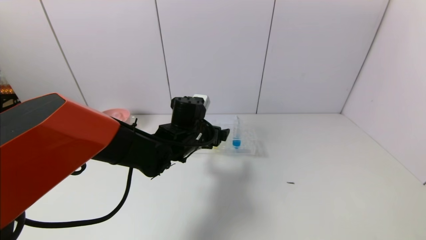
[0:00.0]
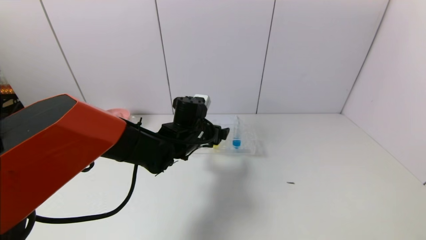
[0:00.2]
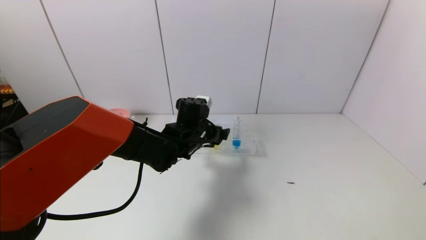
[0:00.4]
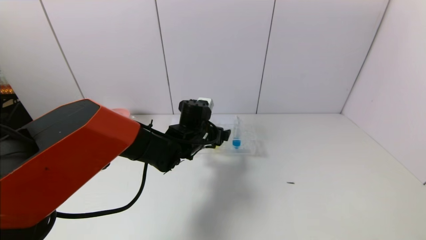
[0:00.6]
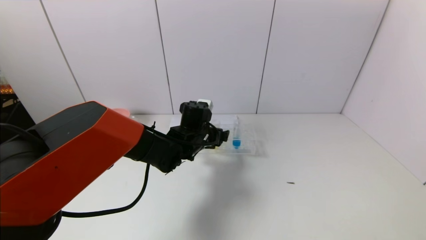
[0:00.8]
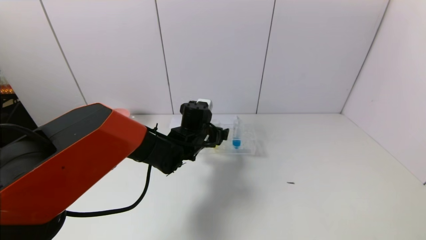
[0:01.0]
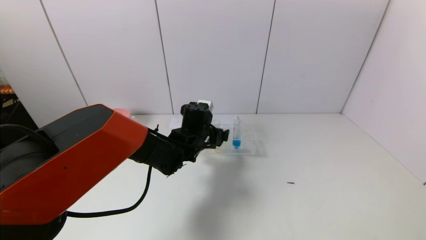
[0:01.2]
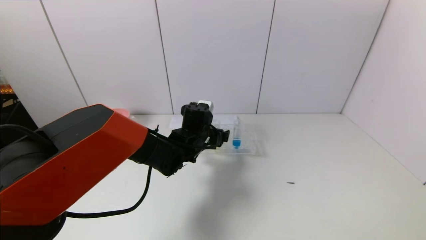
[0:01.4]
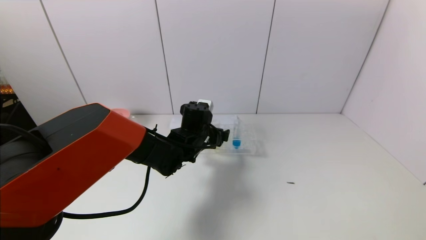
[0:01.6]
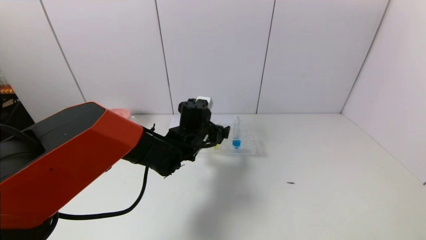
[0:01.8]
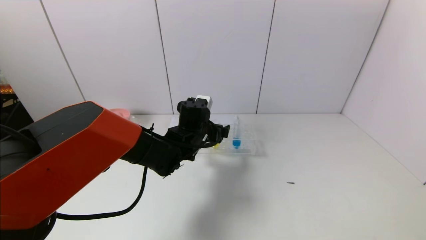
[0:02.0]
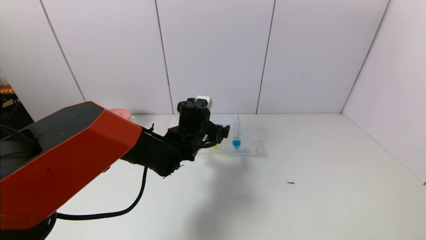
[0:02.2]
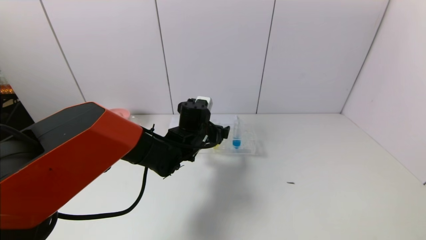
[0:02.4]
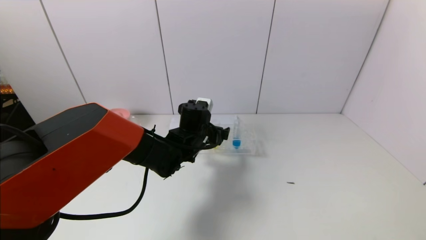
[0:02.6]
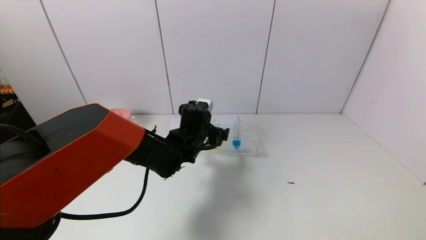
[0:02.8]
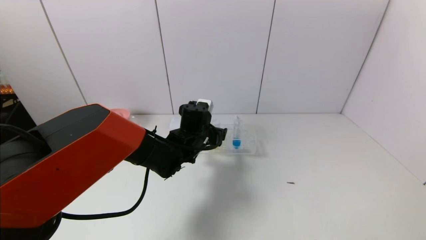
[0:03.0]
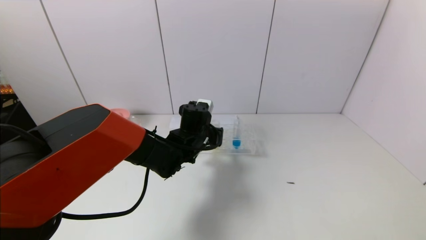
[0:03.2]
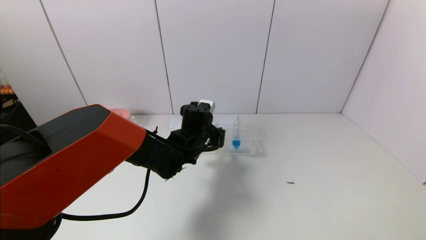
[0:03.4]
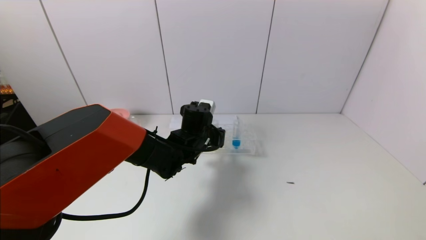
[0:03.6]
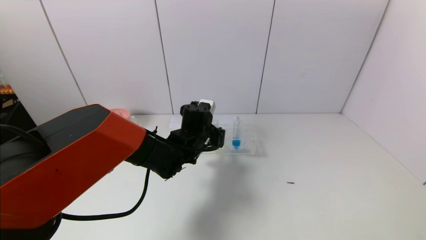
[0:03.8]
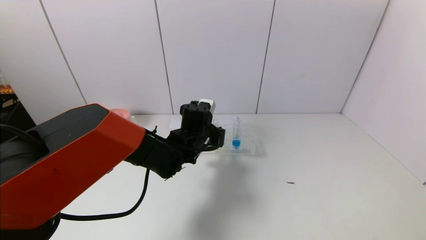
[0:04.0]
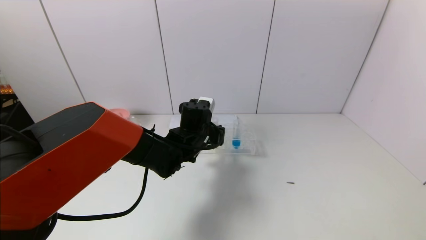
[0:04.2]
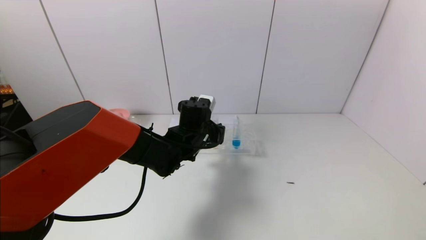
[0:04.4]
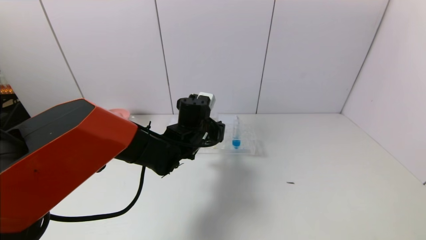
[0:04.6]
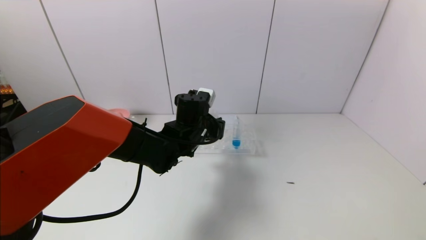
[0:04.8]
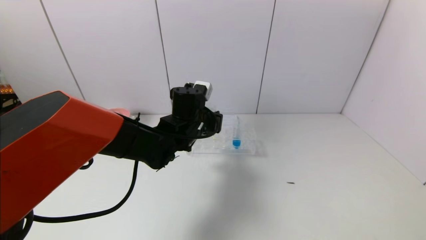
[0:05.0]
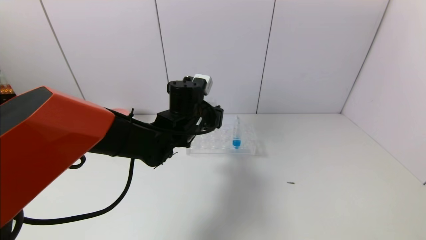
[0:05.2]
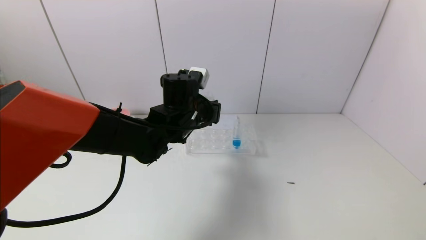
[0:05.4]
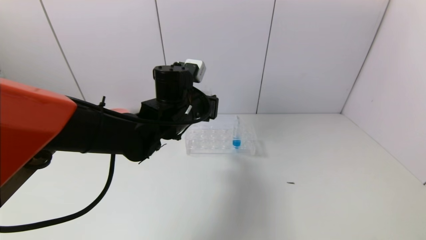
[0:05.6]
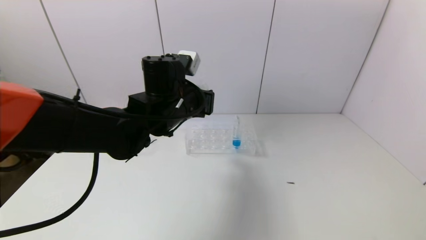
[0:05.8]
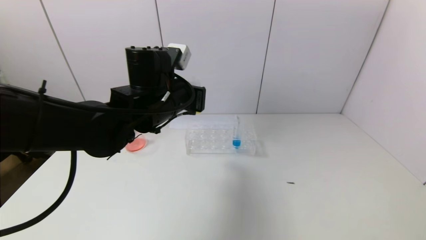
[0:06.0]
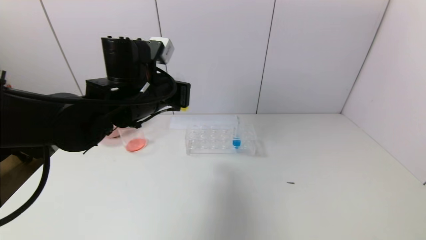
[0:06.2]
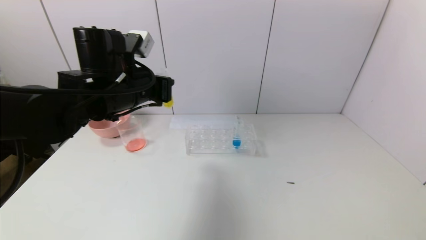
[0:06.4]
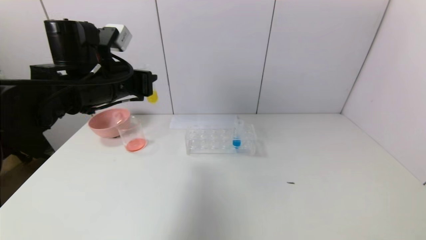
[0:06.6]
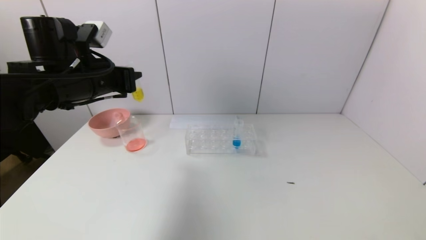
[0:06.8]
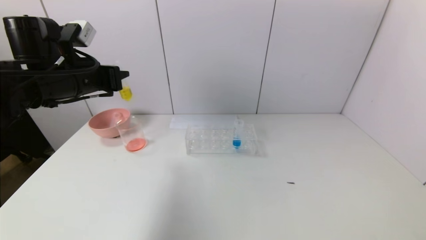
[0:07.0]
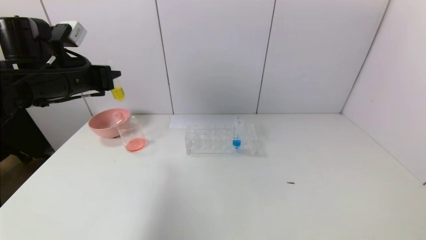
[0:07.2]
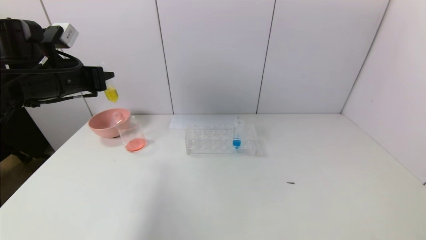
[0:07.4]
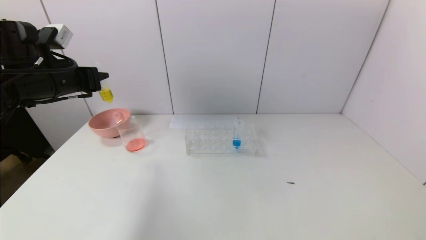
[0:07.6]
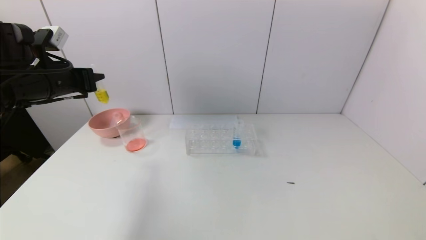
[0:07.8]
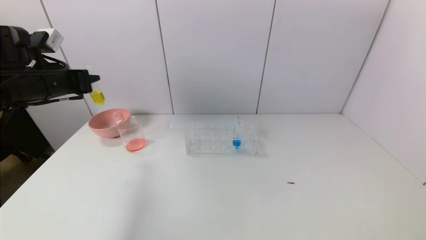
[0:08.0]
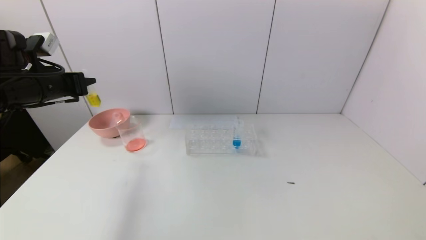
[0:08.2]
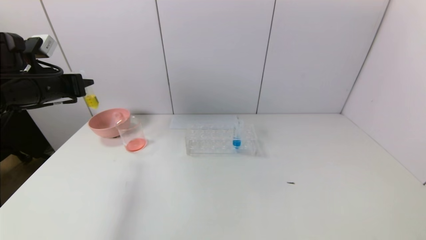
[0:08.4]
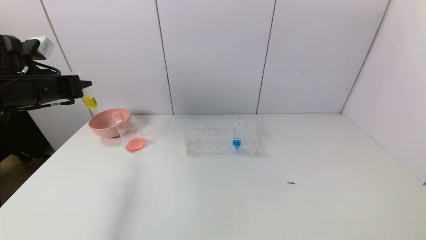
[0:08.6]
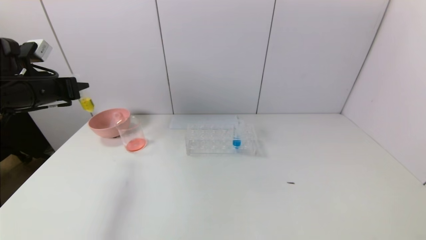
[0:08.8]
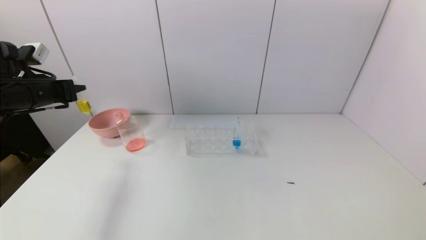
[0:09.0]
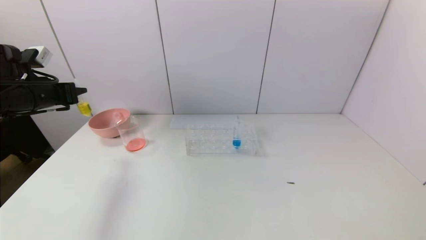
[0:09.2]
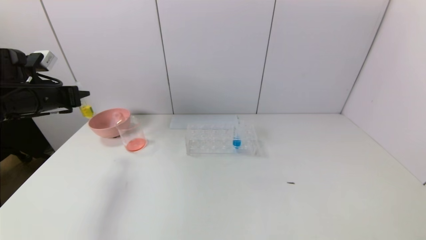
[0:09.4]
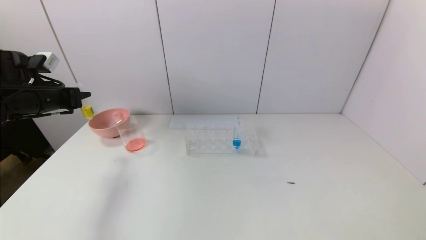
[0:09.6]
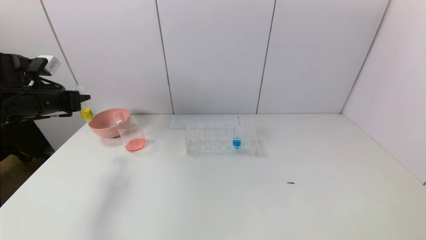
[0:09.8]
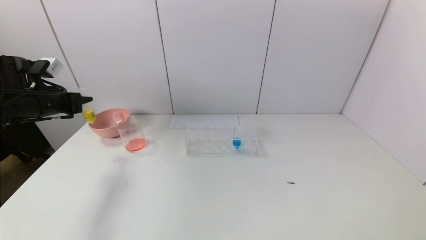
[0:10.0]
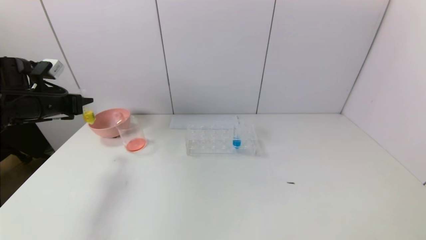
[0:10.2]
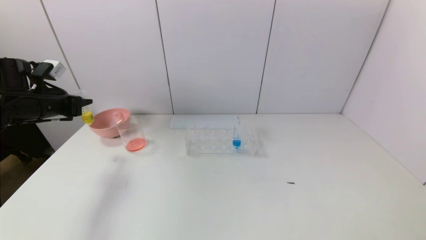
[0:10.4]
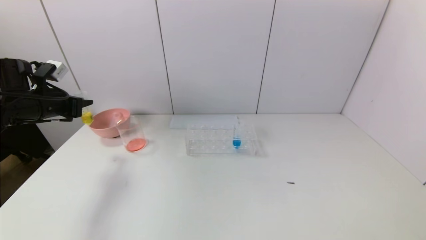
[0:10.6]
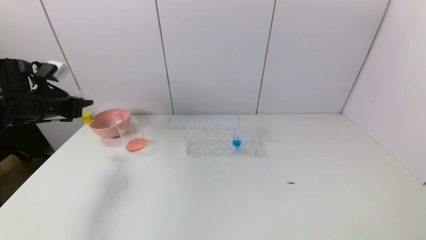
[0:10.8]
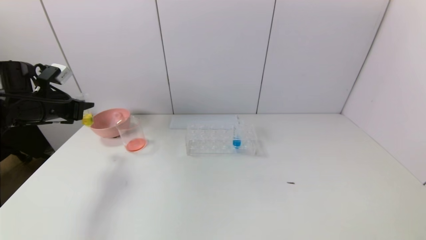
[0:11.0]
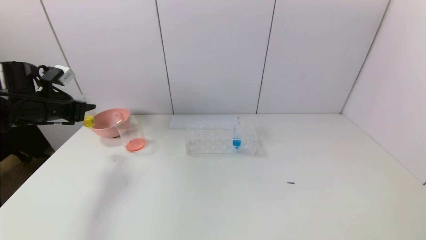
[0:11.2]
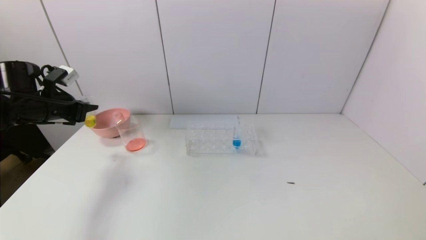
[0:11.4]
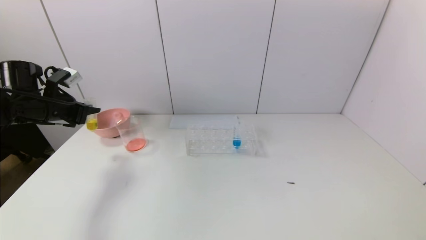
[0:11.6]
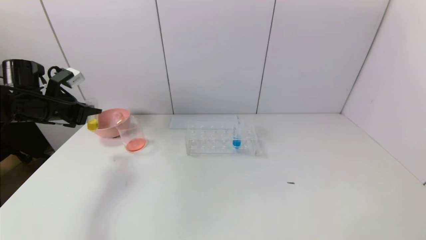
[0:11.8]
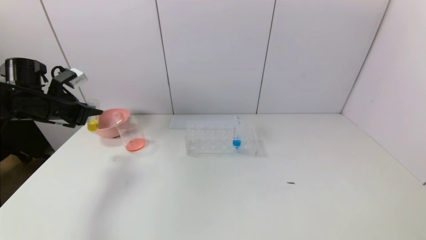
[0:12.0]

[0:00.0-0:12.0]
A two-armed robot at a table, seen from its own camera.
Task of the whole recording: pick up the test tube with yellow pigment and the test tube with red pigment by grippers and pour them into the beaker.
Step, 0:00.0 to 0:03.8: Grasp the yellow reagent with the left gripper.
0:00.0 to 0:01.6: The grippers stay close to where they were, moving slightly.
0:01.6 to 0:03.0: Both grippers stay about where they are.
0:03.0 to 0:04.4: The left gripper closes its fingers.
0:04.4 to 0:06.0: The left gripper is displaced upward, backward and to the left by about 15 cm.
0:06.0 to 0:07.6: The left gripper travels to the left by about 20 cm.
0:07.6 to 0:09.0: The left gripper travels to the left by some 5 cm.
0:09.0 to 0:10.4: The grippers stay close to where they were, moving slightly.
0:10.4 to 0:12.0: The grippers stay close to where they were, moving slightly.

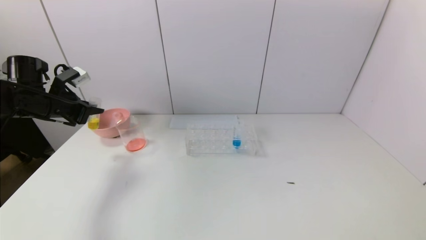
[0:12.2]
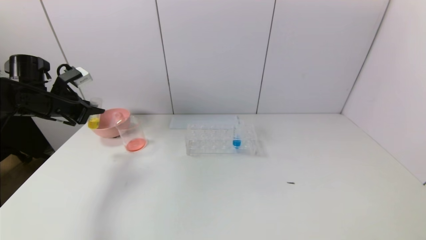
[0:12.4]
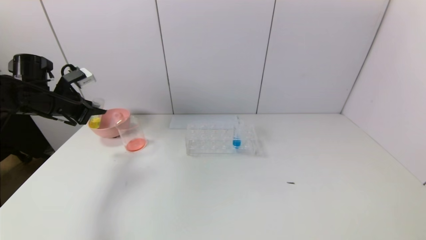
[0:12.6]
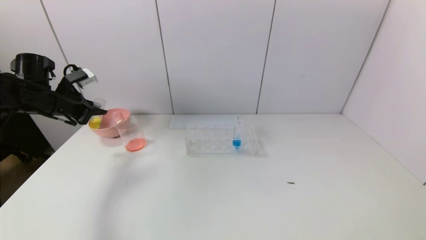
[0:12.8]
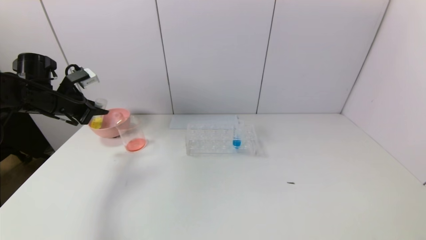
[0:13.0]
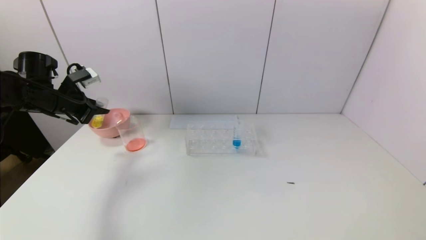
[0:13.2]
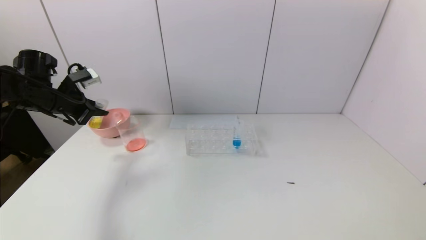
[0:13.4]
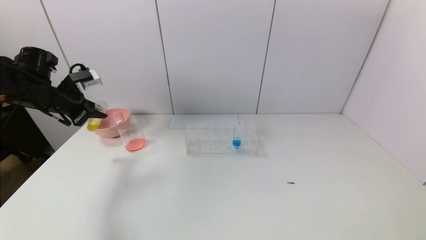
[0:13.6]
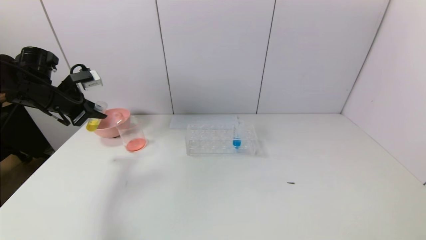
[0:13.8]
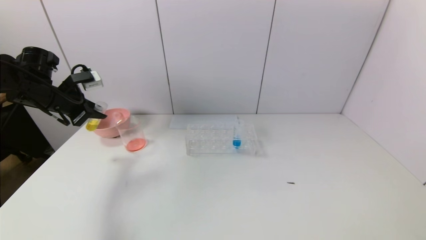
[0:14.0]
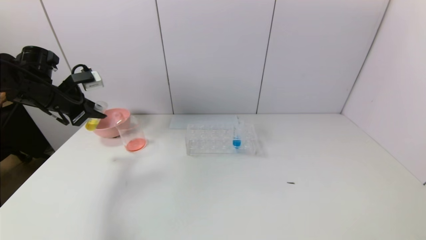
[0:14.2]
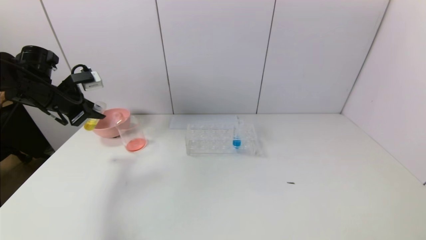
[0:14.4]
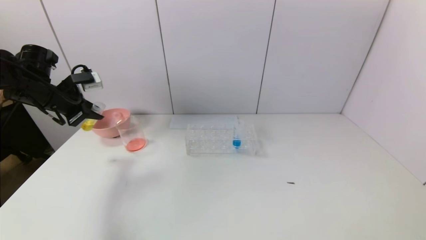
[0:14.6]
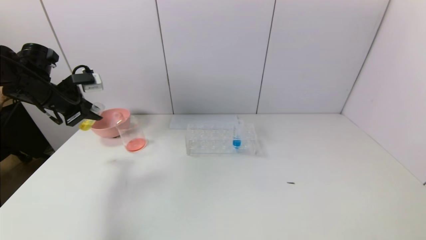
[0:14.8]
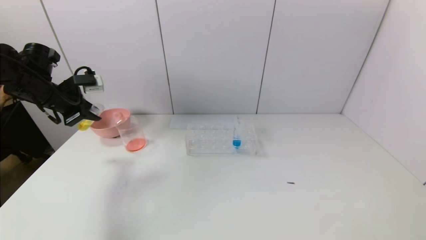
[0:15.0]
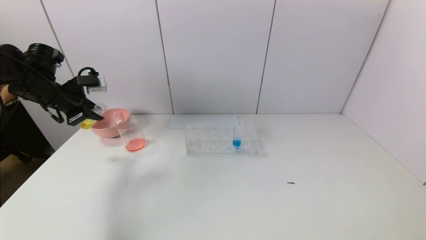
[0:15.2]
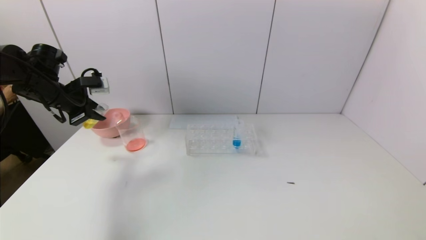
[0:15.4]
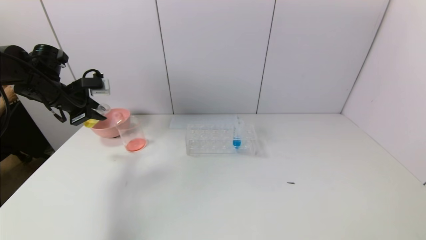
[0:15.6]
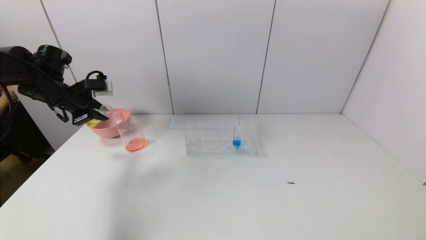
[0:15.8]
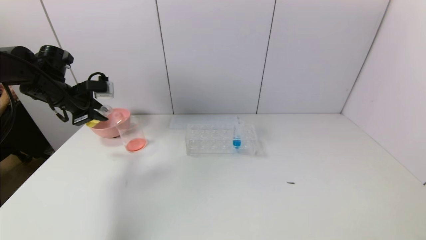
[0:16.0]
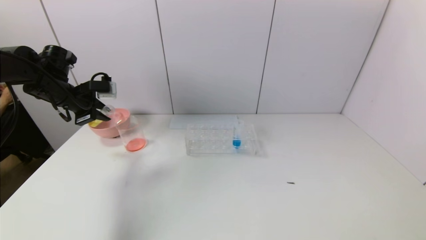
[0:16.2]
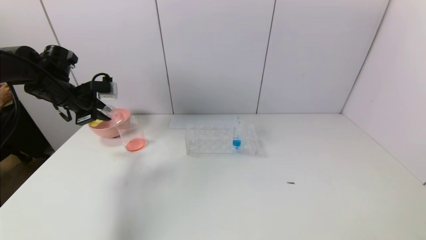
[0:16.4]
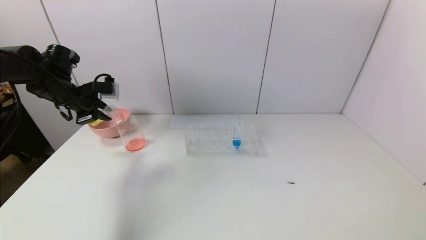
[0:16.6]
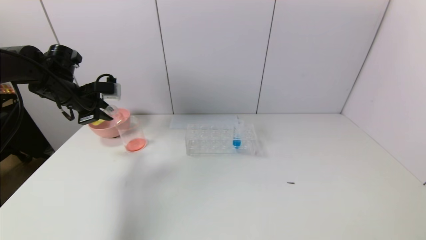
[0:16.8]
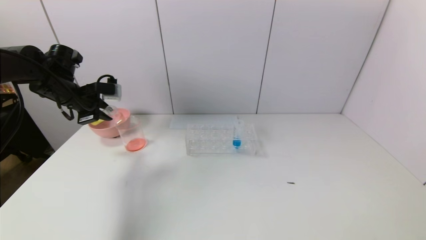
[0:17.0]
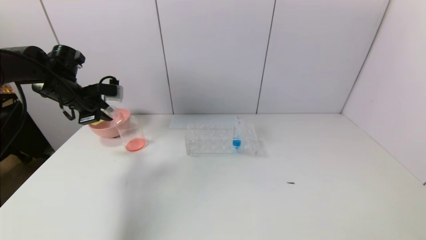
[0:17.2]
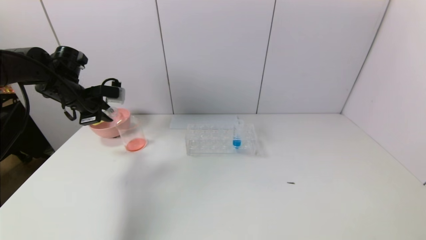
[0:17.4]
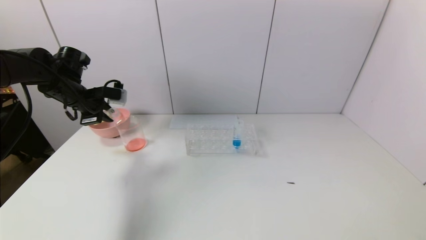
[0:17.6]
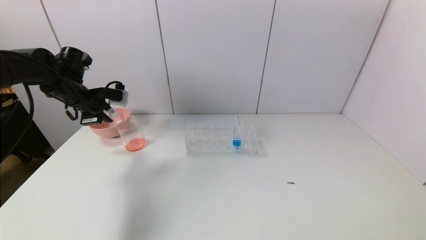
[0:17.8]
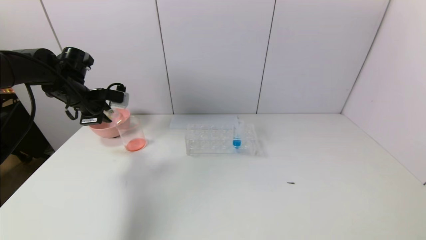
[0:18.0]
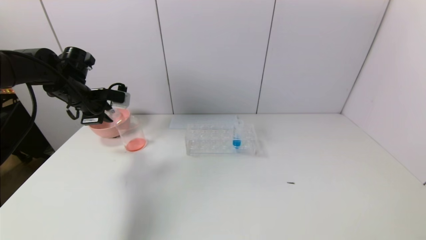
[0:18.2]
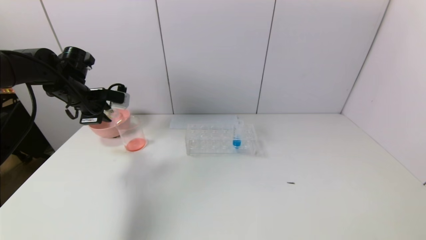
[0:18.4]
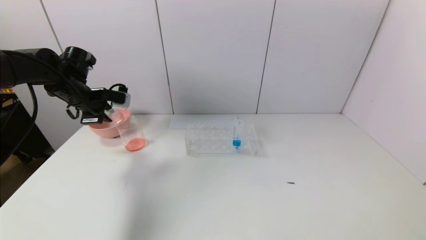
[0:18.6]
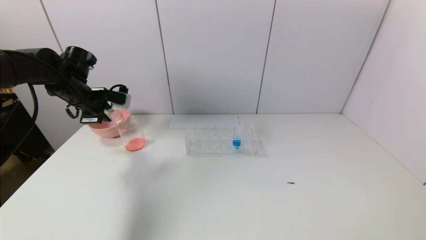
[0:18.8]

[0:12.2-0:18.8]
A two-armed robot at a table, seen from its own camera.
Task of the whole recording: pick up the test tube with yellow pigment and the test tube with red pigment by grippers and pour them into the beaker.
0:13.8 to 0:15.4: The grippers make only small movements.
0:15.4 to 0:17.2: The grippers stay close to where they were, moving slightly.
0:17.2 to 0:18.8: The grippers make only small movements.
